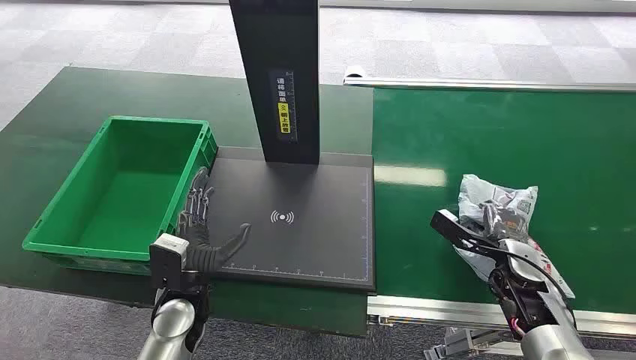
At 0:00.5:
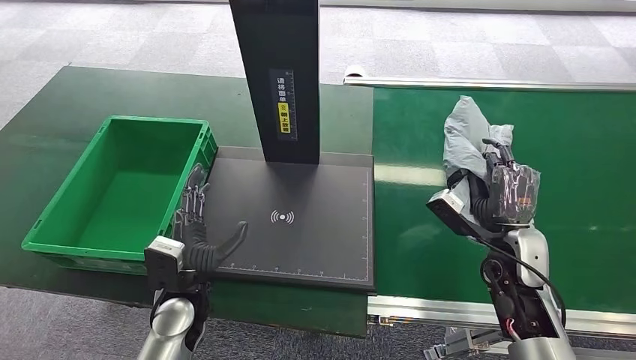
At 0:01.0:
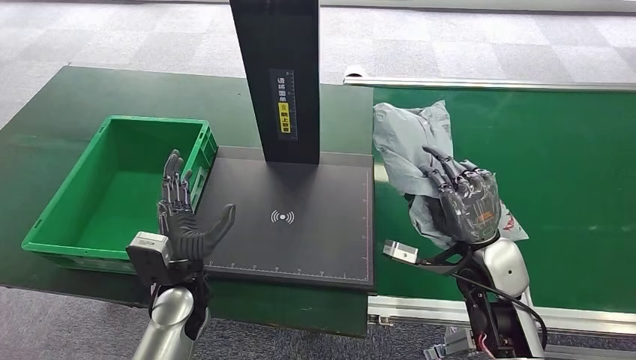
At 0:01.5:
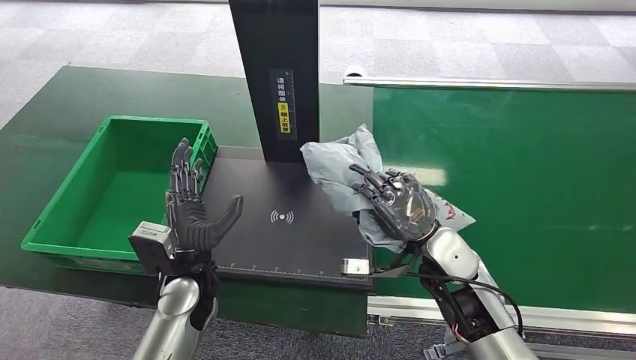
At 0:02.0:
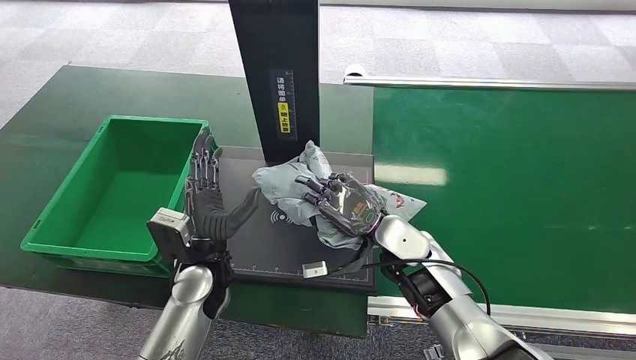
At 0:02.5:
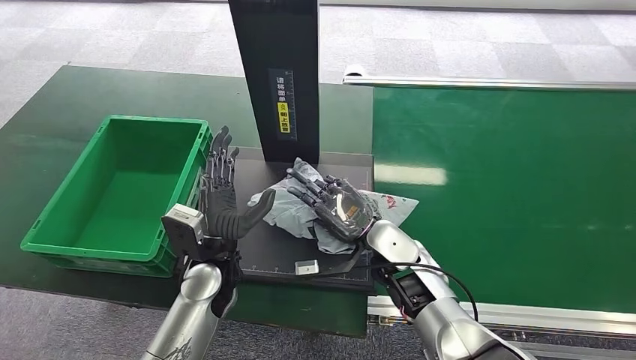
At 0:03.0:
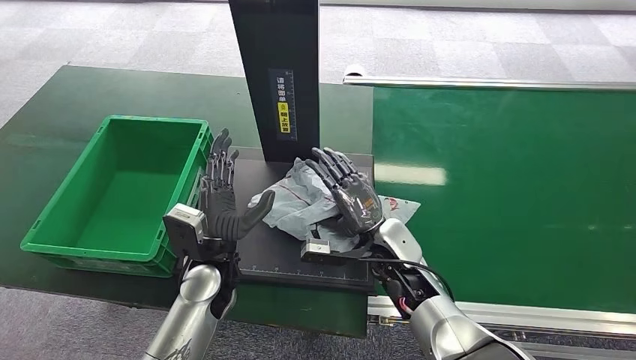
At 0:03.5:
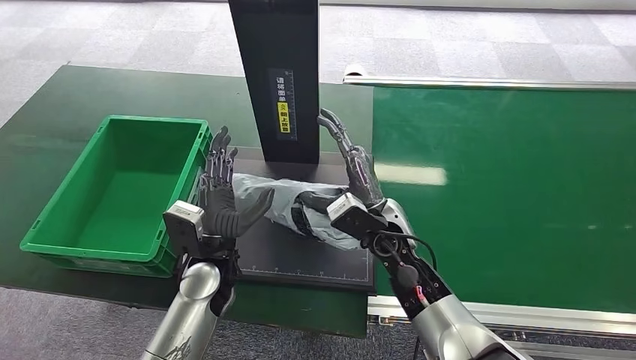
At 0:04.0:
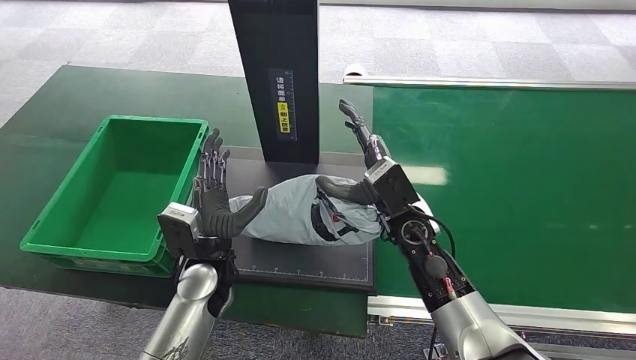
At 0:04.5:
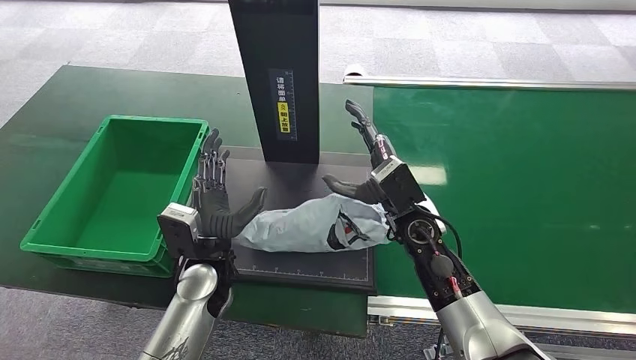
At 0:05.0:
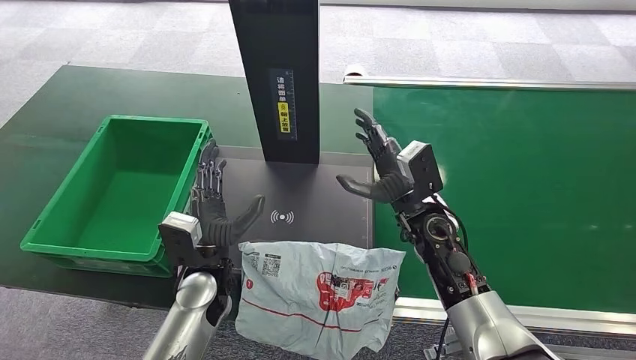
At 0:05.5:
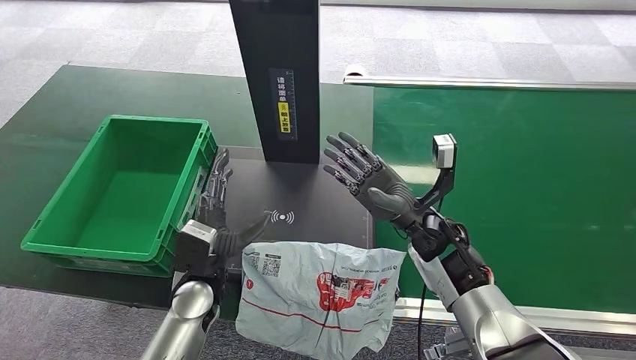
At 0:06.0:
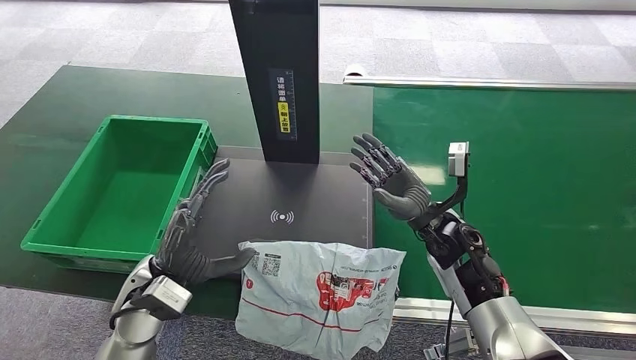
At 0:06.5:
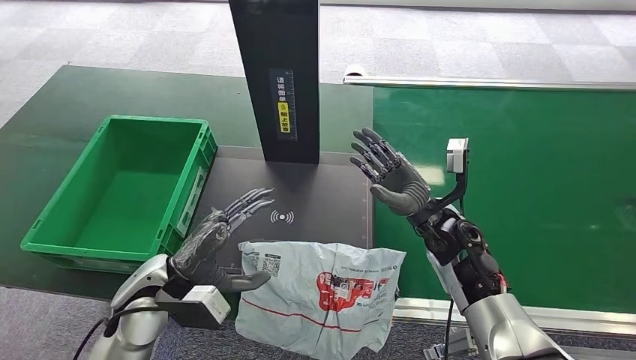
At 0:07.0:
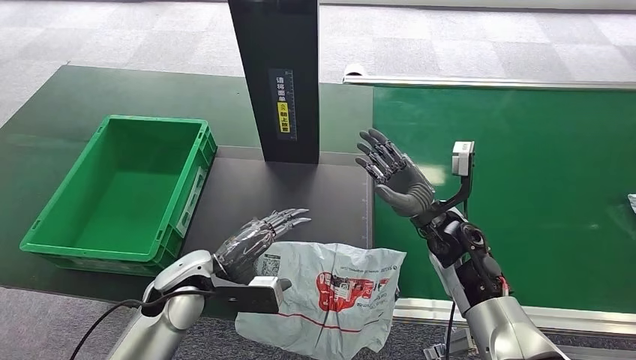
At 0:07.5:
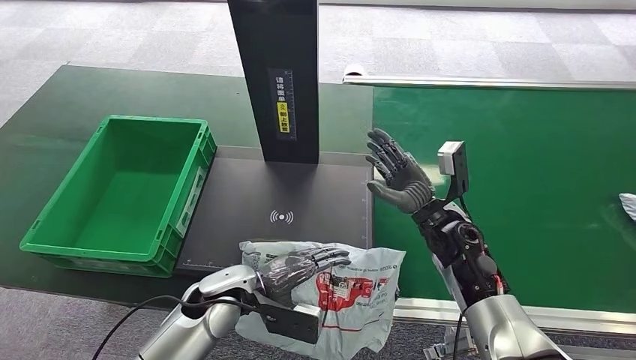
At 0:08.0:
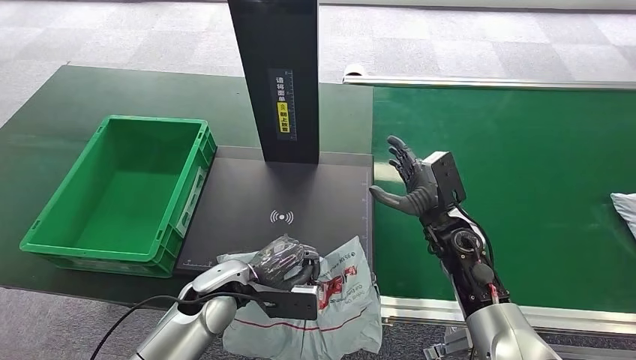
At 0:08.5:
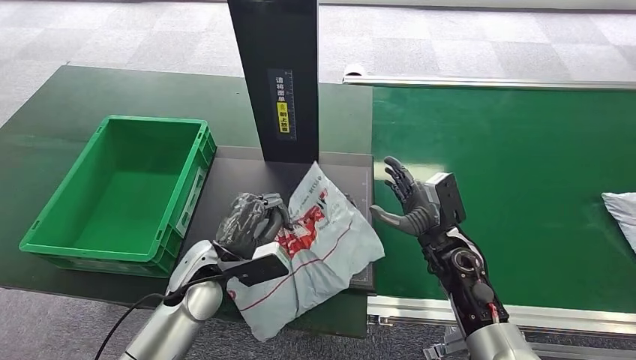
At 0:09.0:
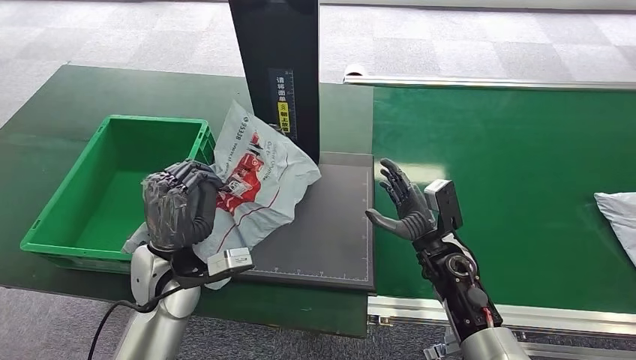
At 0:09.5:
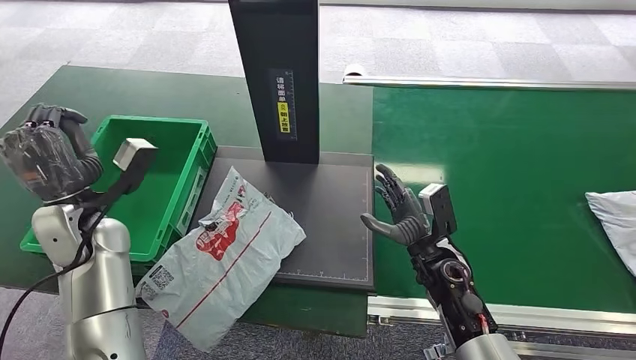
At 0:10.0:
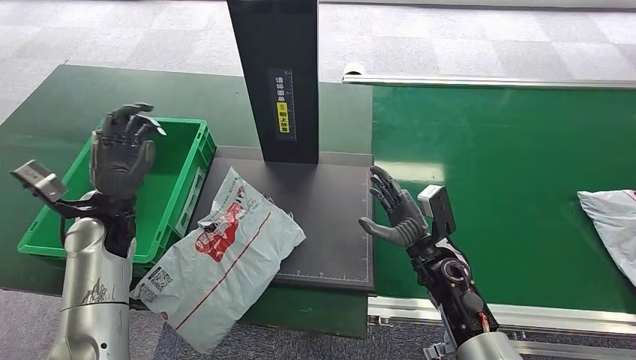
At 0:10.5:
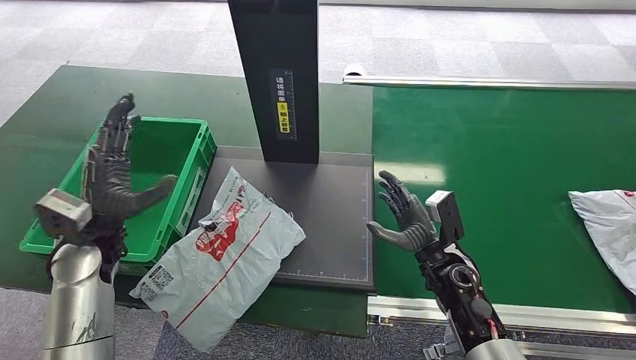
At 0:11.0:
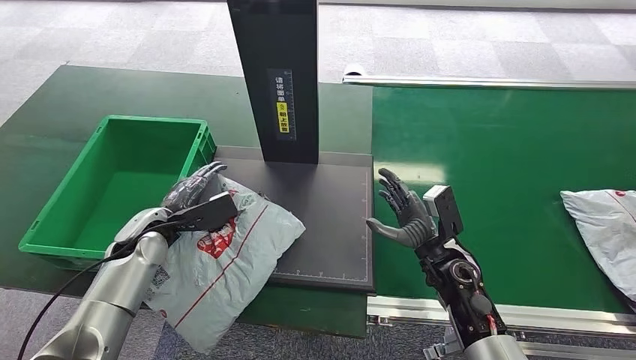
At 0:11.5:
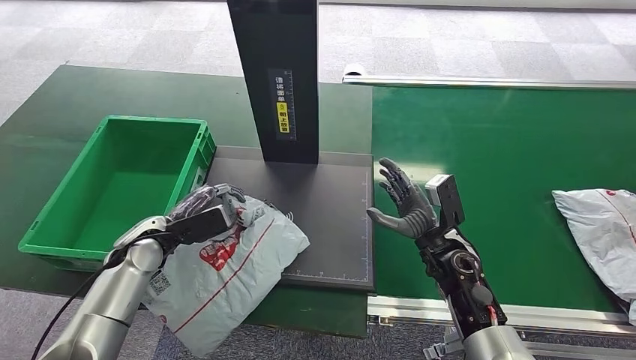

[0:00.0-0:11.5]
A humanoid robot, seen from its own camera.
Step, 0:00.0 to 0:00.5: Pick up the package from the conveyor belt.
Step, 0:01.5 to 0:03.5: Place the package onto the inbound machine.
Step, 0:05.5 to 0:08.5: Pick up the package from the inbound machine.
0:06.0 to 0:07.5: The left hand moves to the right and downward, about 10 cm.
0:09.5 to 0:11.5: The left hand moves downward, about 10 cm.

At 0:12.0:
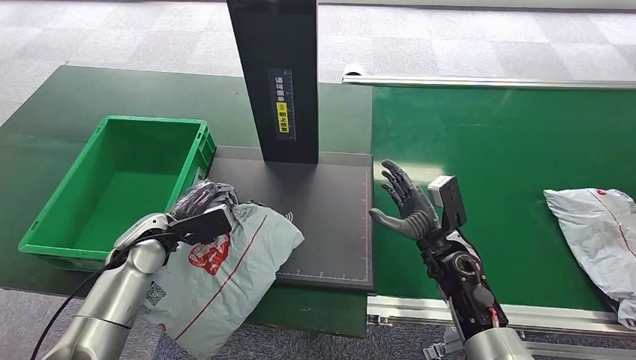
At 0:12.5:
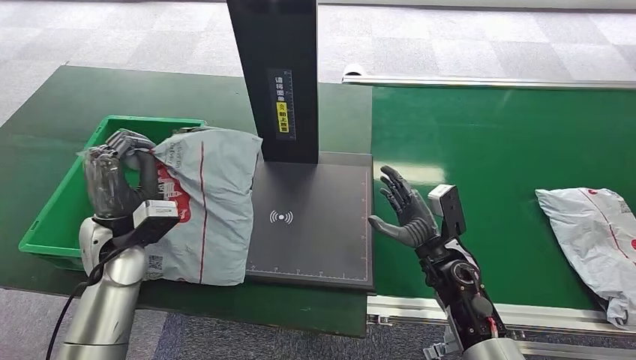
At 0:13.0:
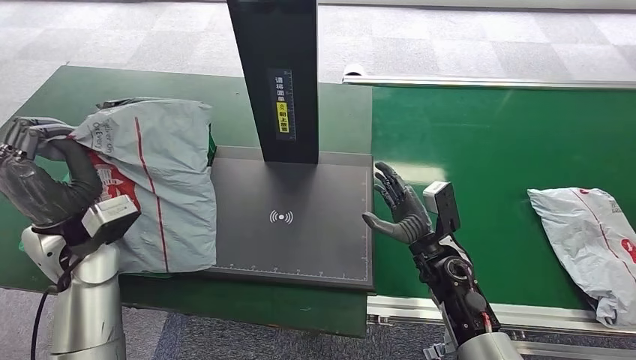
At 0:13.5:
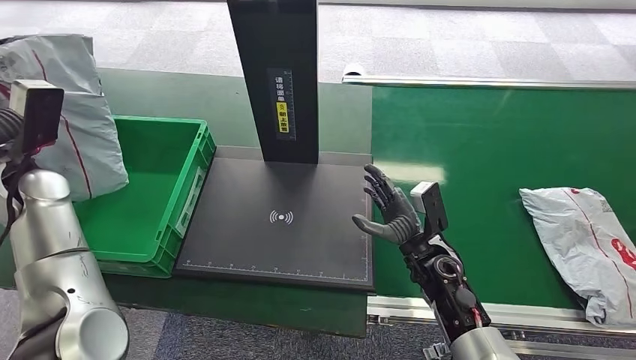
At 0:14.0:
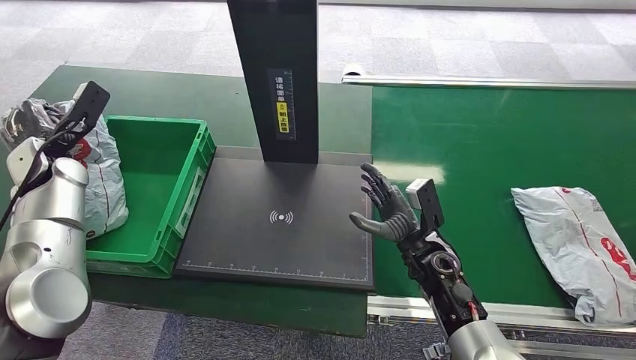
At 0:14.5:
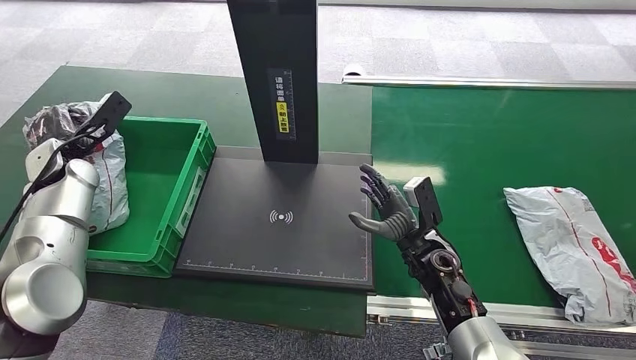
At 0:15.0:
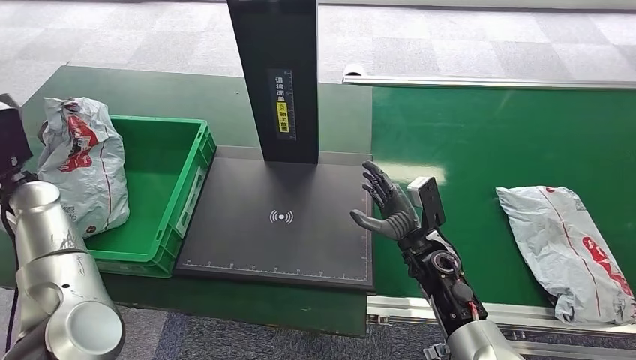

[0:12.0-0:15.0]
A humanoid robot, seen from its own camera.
Step, 0:12.0 to 0:15.0: Place the package into the parcel locker.

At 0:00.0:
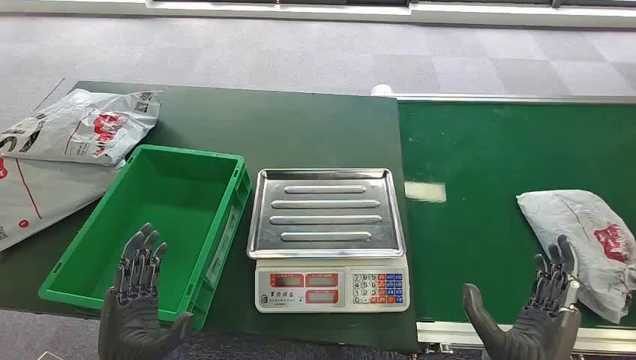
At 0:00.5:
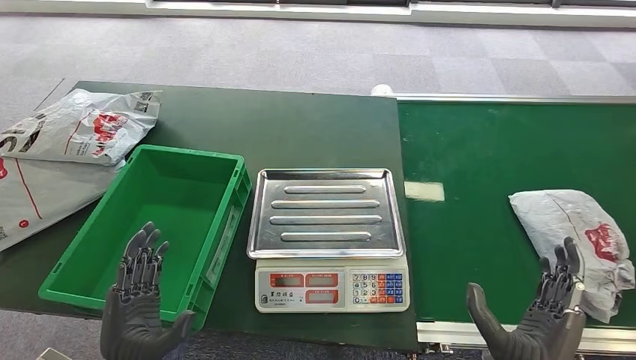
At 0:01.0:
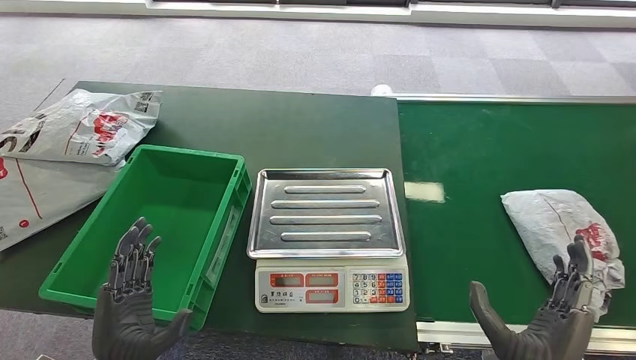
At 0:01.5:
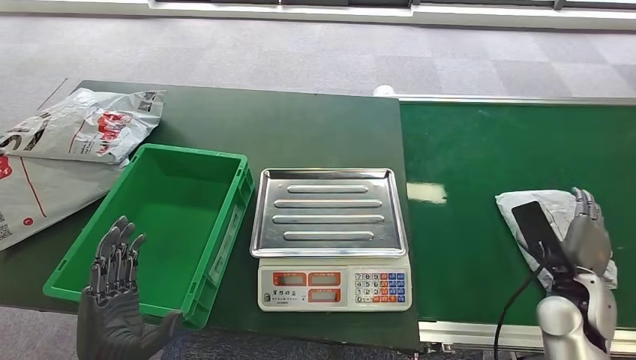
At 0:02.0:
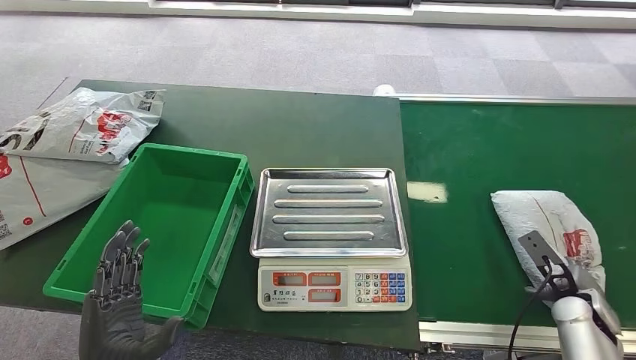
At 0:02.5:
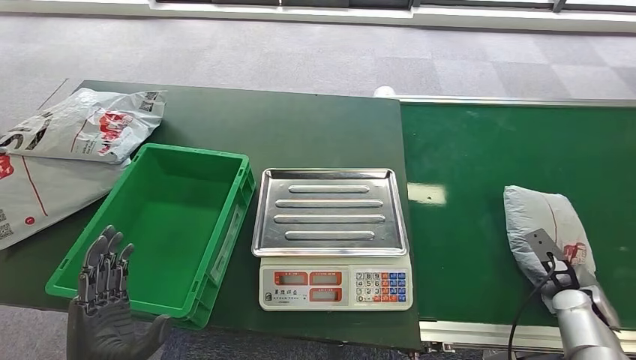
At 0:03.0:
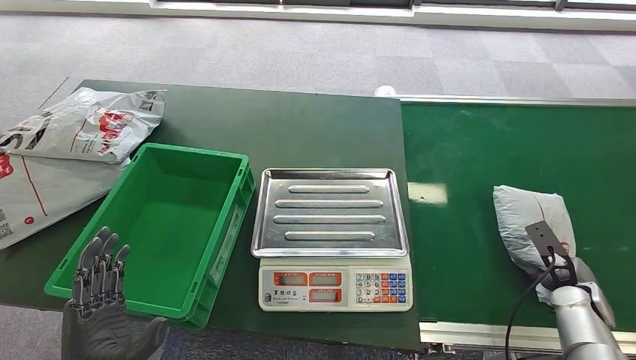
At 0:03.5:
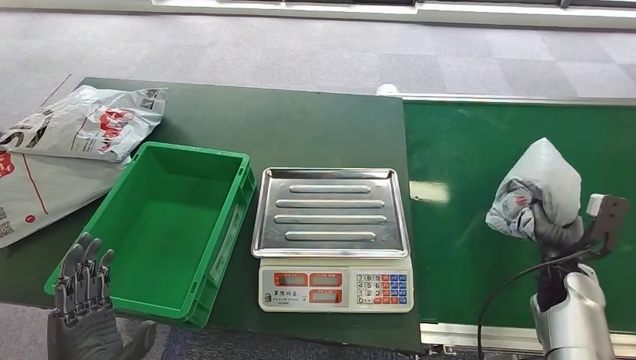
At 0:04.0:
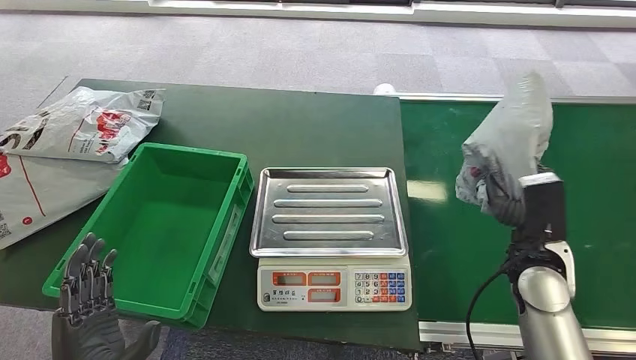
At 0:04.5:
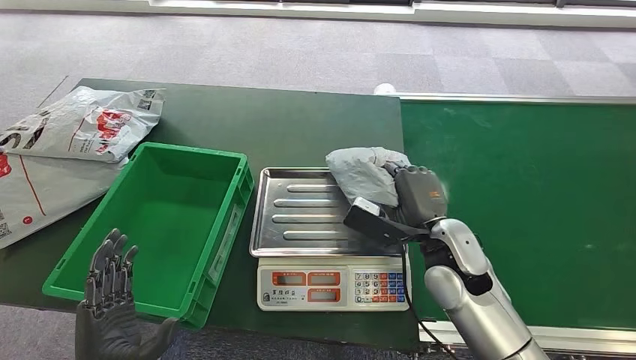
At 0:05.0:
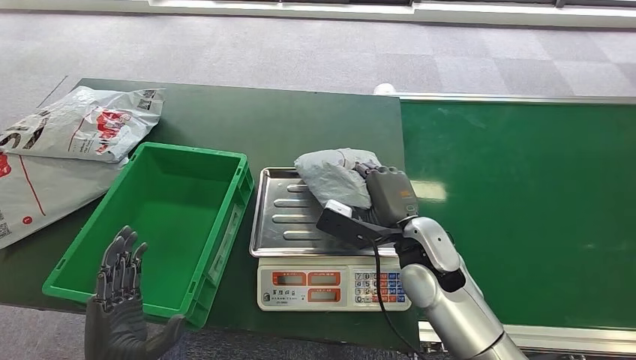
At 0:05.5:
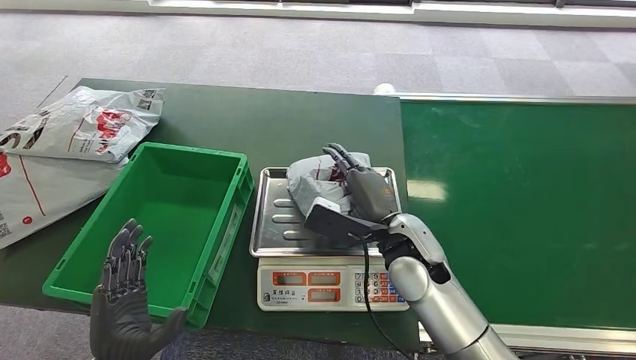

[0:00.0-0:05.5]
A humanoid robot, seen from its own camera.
Step, 0:00.0 to 0:03.5: Pick up the package from the conveyor belt.
Step, 0:04.0 to 0:05.0: Place the package onto the inbound machine.
0:02.0 to 0:03.5: The right hand ends up about 5 cm from where it was.
